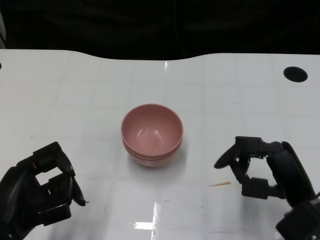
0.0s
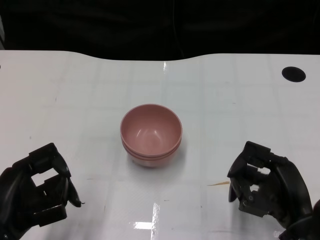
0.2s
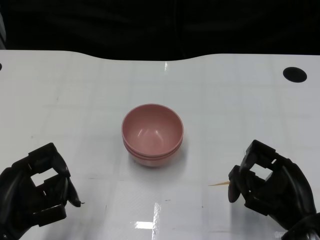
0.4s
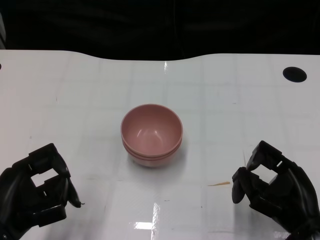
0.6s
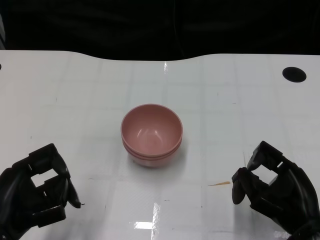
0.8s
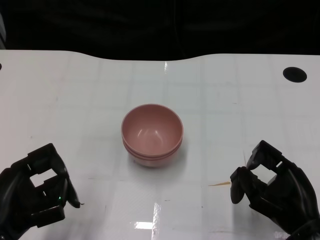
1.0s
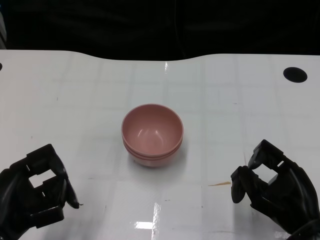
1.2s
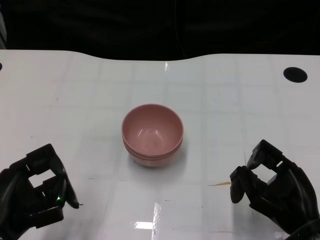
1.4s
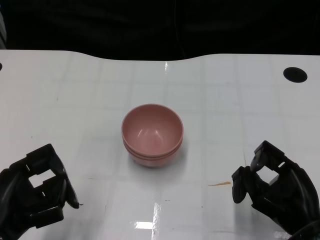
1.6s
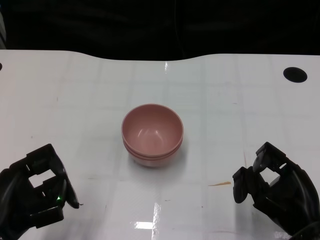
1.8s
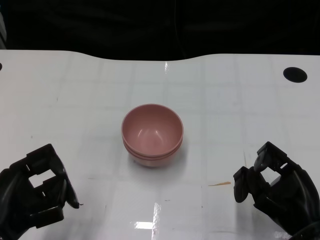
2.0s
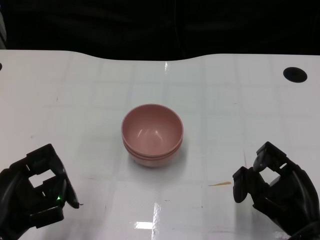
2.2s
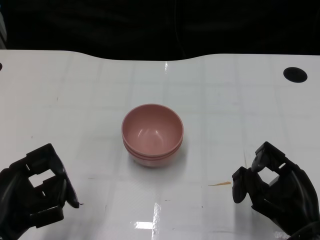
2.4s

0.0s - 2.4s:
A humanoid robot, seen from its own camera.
Task of the whole recording: Pick up the bowl on one side of the table and place it on top of the middle bowl, then pick up the bowl on the other side of the table and place it on top of the middle bowls.
1.2s - 2.4s: Neither hand changes place.

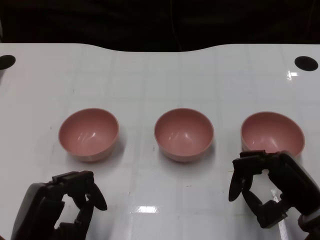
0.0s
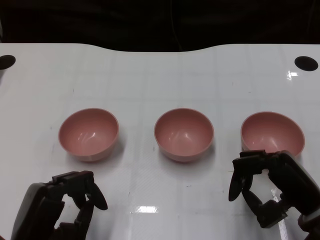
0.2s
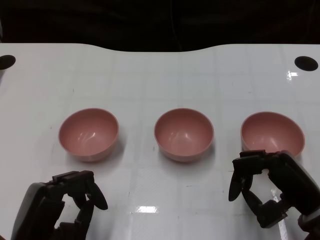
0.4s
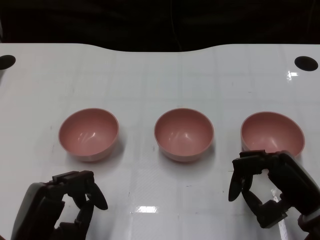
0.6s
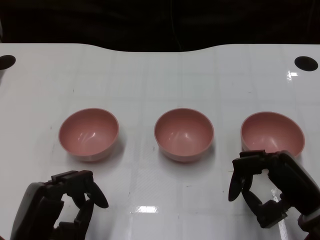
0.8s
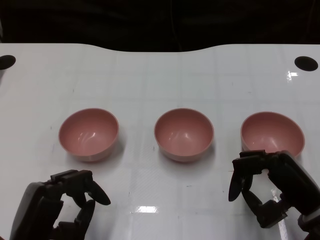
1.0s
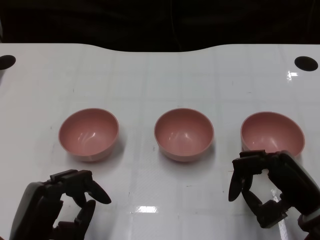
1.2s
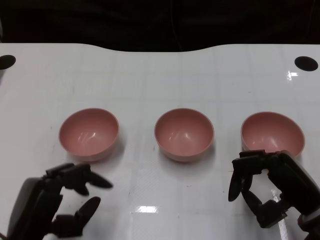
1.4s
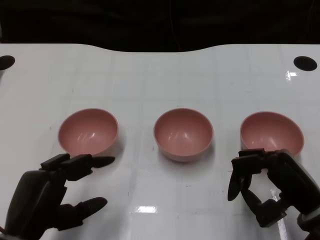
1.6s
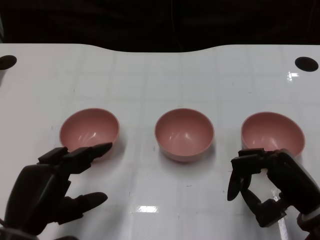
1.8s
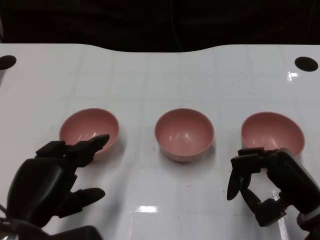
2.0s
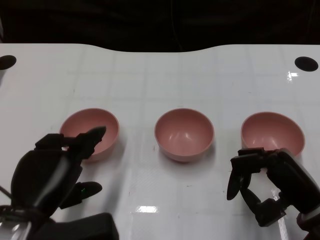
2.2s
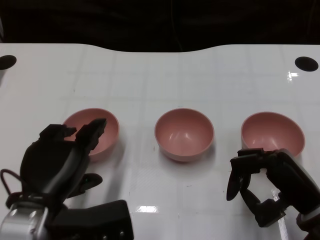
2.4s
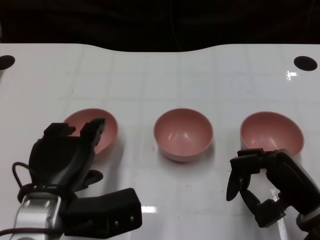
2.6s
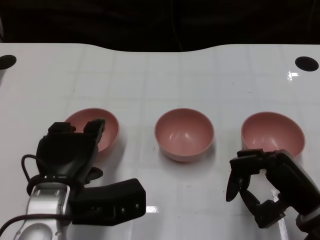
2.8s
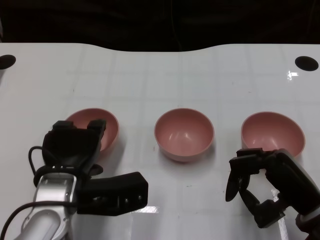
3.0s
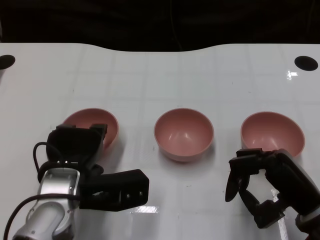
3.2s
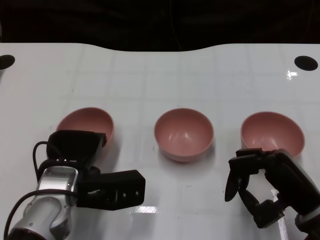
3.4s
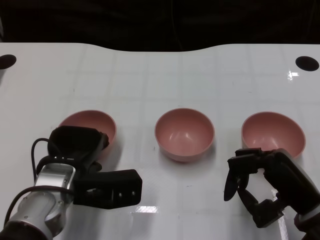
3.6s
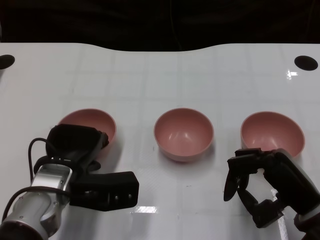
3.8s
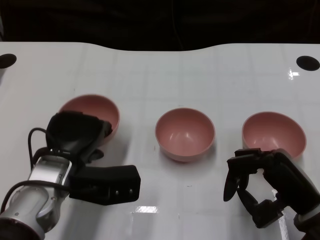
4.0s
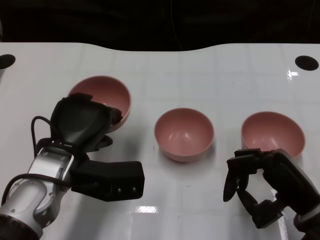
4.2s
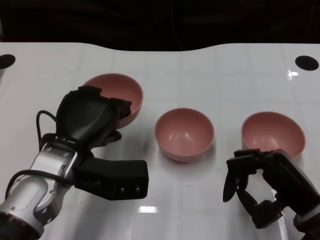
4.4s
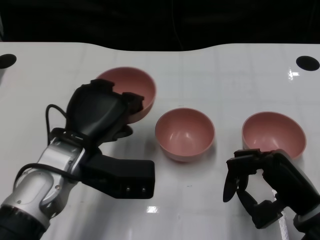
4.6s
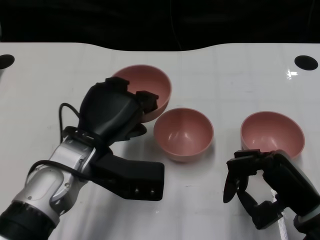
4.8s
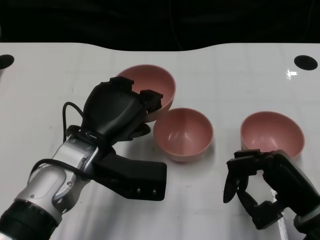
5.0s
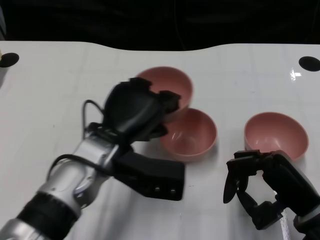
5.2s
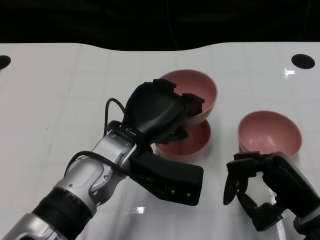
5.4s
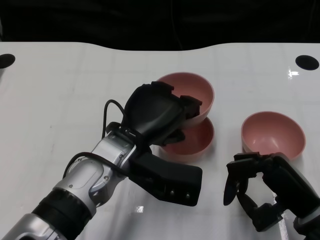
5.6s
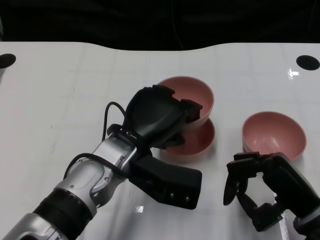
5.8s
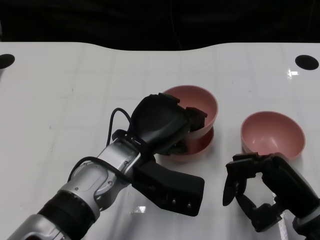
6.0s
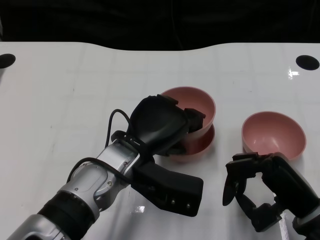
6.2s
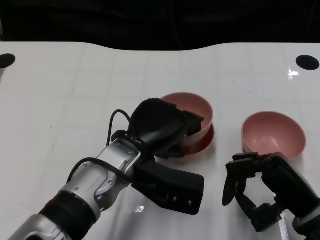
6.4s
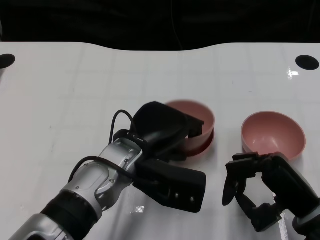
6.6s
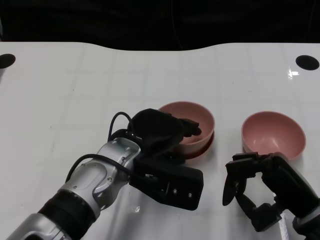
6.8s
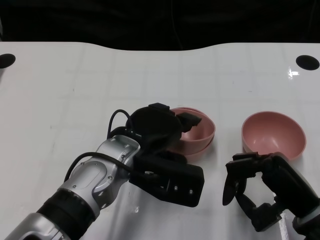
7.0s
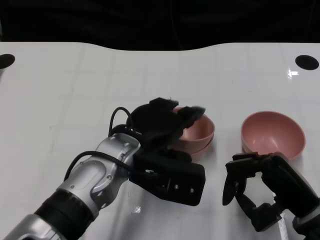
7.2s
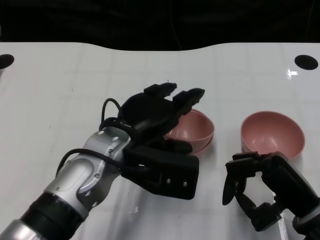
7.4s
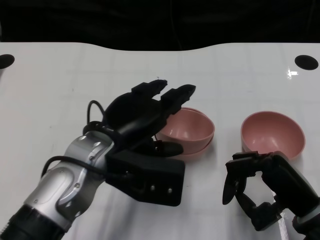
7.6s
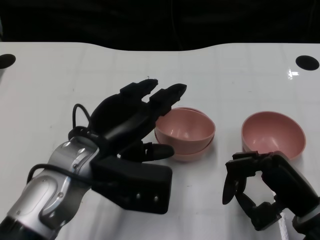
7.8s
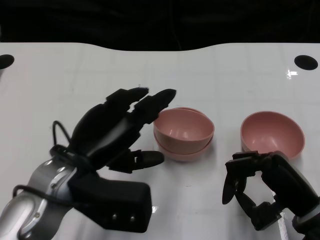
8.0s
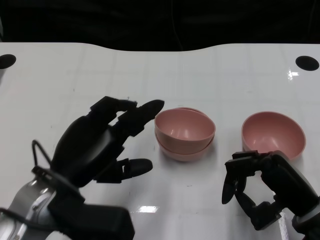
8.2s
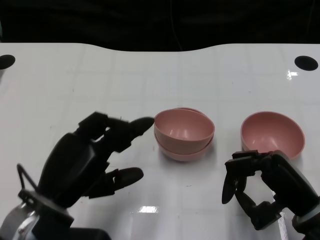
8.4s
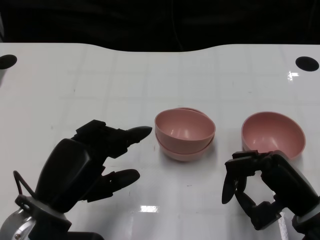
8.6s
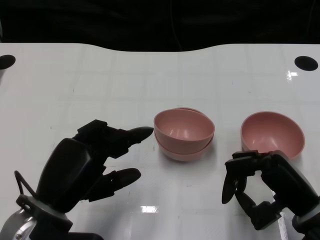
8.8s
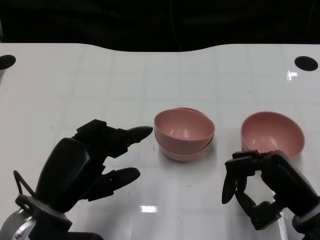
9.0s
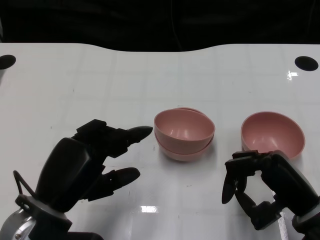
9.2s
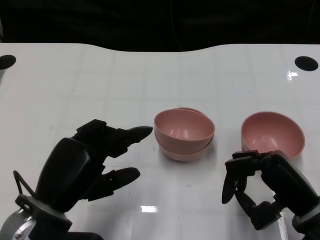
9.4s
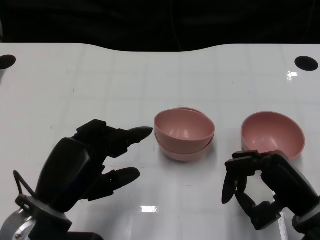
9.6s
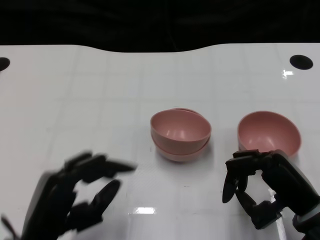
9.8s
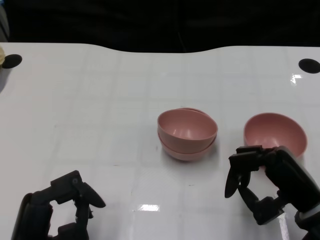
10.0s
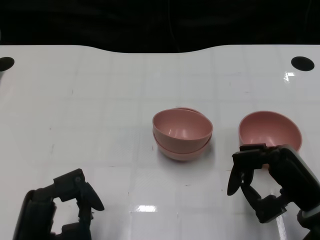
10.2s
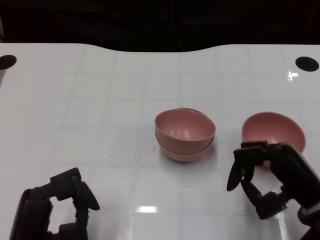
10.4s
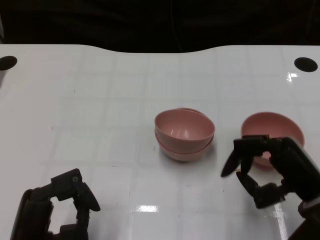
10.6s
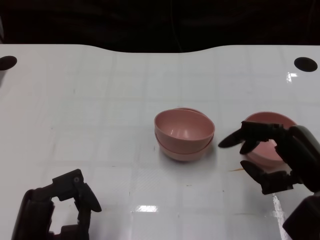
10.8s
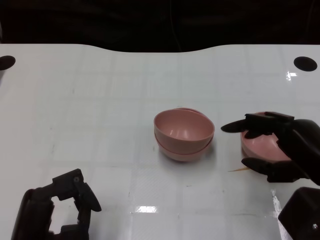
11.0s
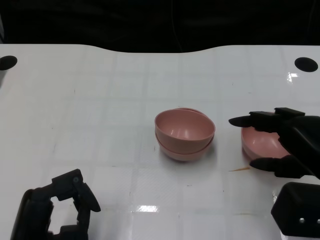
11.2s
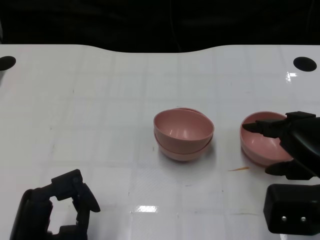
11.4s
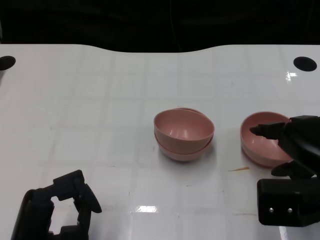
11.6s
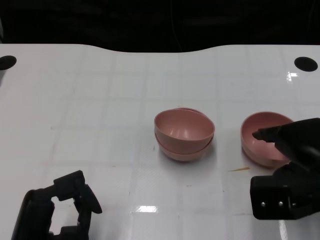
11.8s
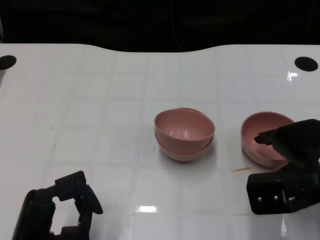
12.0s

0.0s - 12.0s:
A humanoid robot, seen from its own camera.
Task of the whole recording: Pick up the bowl on one side of the table and place it on top of the middle bowl, then pick up the bowl on the other side of the table and place it on top of the middle bowls.
Step, 1.2s - 3.8s: Grasp the bowl on the left with the left gripper.
Step, 4.0s - 7.4s: Place the bowl on the left onto the bowl in the middle with left gripper.
1.6s - 3.0s: The left hand heads forward and to the right, covering approximately 10 cm.
4.4s - 6.0s: The left hand shifts roughly 10 cm to the right.
6.0s - 7.6s: The left hand moves about 5 cm.
7.6s - 9.0s: The left hand is displaced to the left and backward by approximately 10 cm.
9.0s - 10.4s: The left hand heads backward, covering roughly 5 cm.
10.4s - 12.0s: The right hand changes place by about 5 cm.

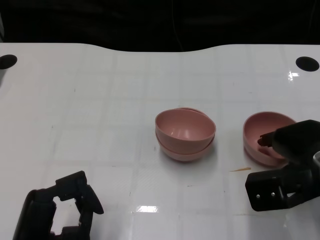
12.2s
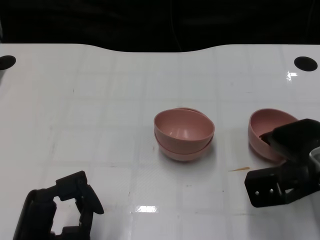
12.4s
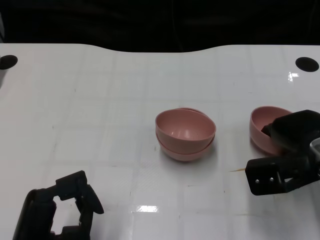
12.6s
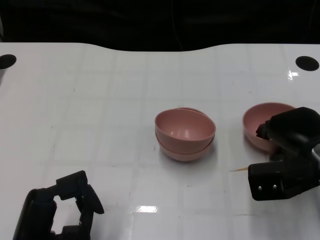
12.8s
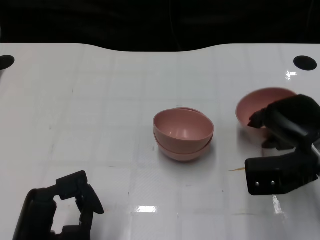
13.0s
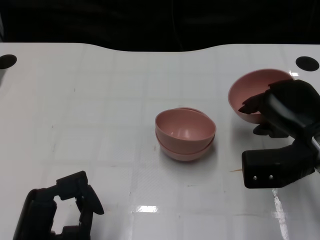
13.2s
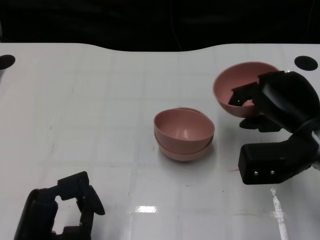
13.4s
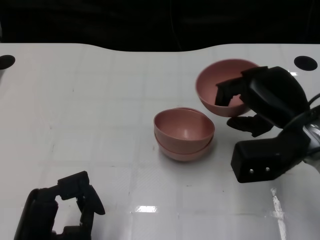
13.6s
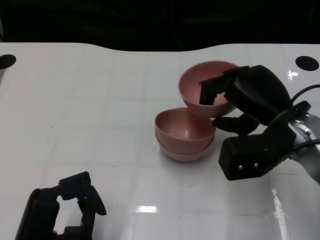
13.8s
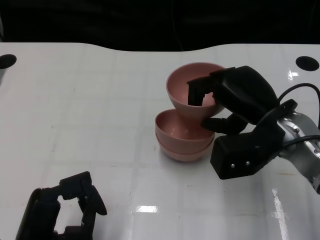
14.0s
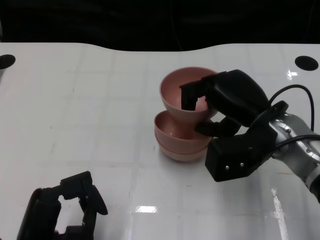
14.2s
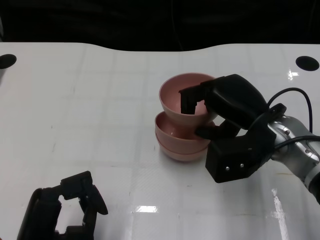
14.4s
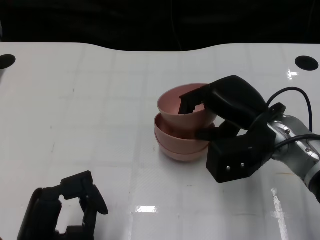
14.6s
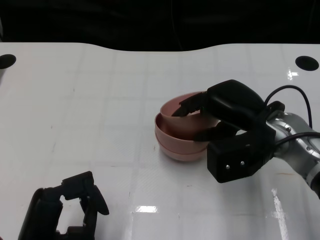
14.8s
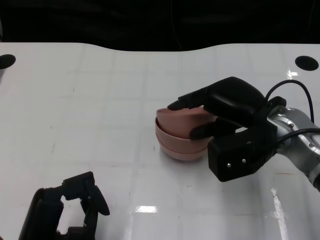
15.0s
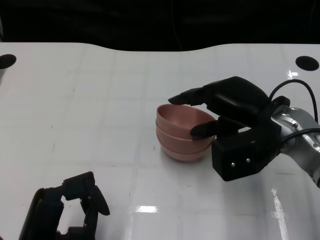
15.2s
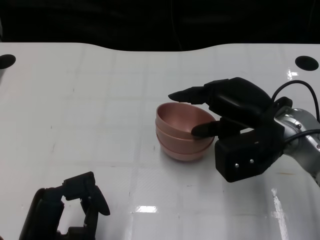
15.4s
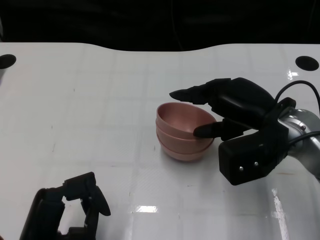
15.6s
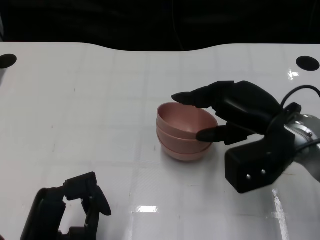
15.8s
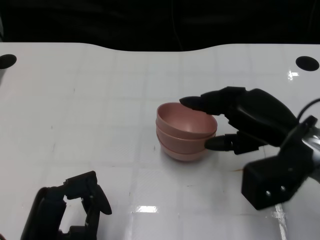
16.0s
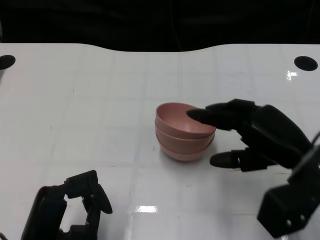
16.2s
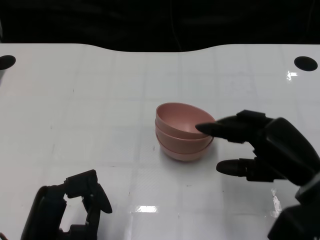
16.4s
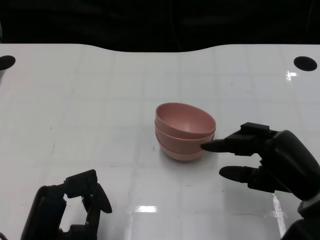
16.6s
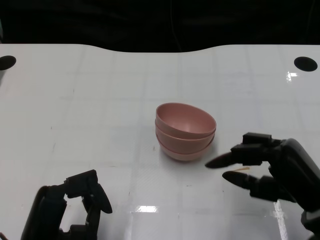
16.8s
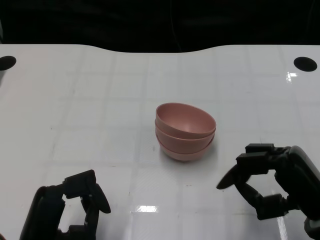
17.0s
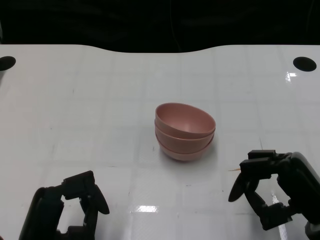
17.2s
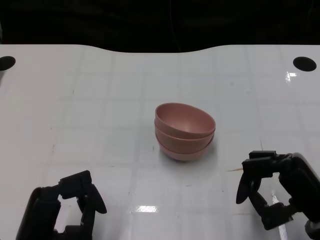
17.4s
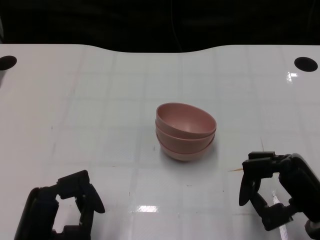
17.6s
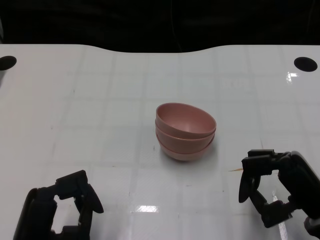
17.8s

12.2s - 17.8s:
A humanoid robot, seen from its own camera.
Task of the whole recording: Pick up the bowl on one side of the table and place it on top of the middle bowl, then pick up the bowl on the other side of the table and place it on top of the middle bowls.
Step, 13.0s - 16.0s: Place the bowl on the right onto the bowl in the middle with right gripper.
12.2s - 13.6s: The right hand moves some 5 cm.
13.6s - 15.0s: The hands make only small movements.
15.0s - 16.4s: The right hand goes approximately 10 cm backward and to the right.
16.4s - 17.8s: The right hand moves some 5 cm.

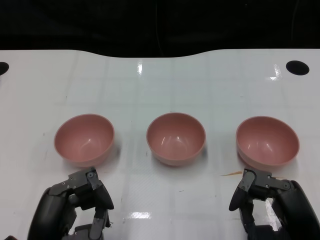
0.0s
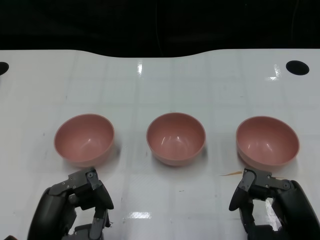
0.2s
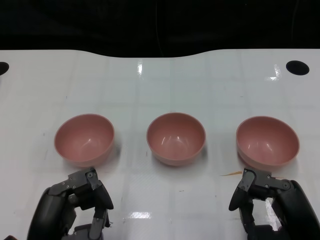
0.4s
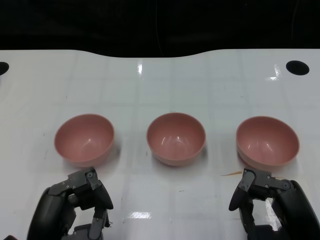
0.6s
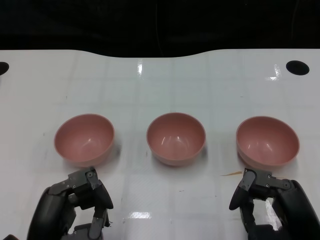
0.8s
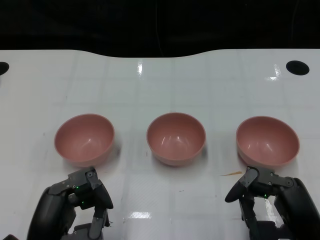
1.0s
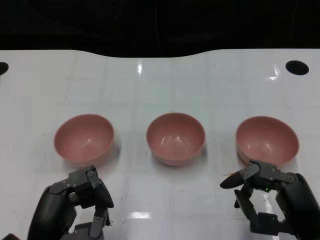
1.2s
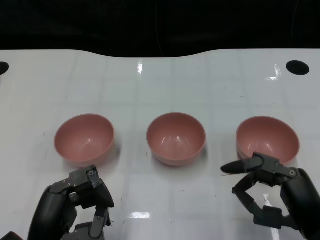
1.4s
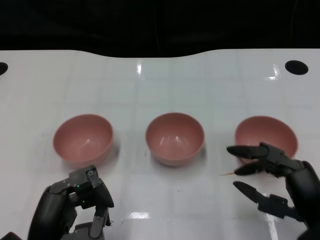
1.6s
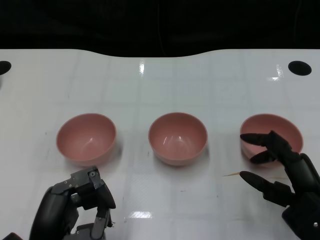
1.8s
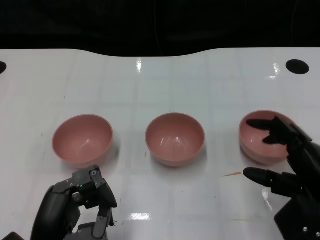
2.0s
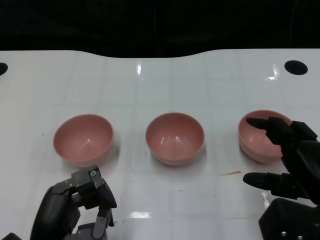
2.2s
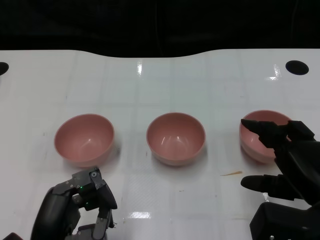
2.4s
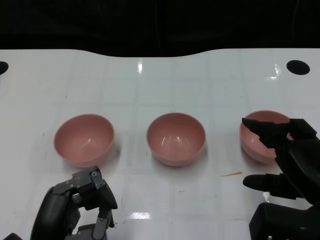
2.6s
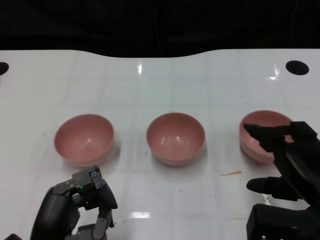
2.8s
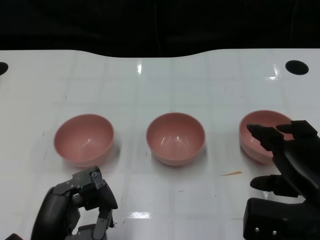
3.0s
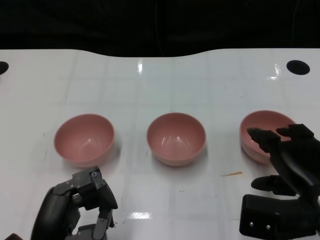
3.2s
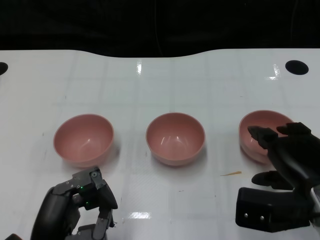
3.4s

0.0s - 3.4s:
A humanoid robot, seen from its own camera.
Task of the whole recording: Pick up the bowl on one side of the table and place it on top of the middle bowl, then pick up the bowl on the other side of the table and place it on top of the middle bowls.
1.6s - 3.4s: The right hand goes approximately 5 cm forward.
